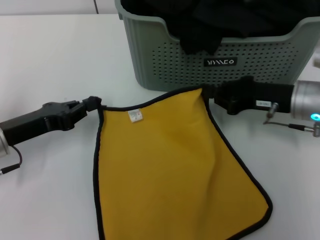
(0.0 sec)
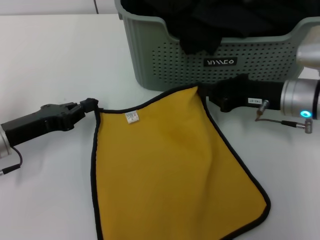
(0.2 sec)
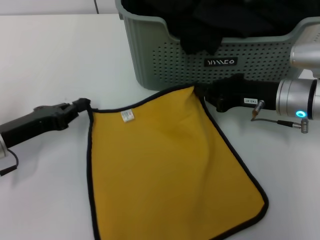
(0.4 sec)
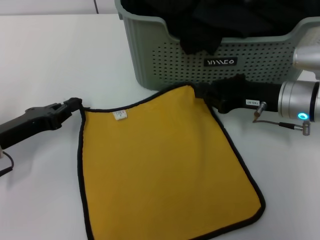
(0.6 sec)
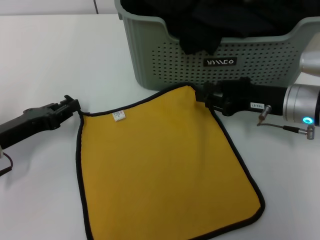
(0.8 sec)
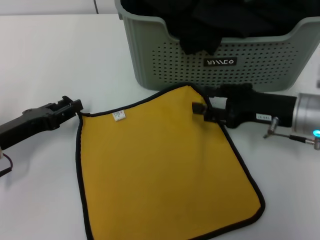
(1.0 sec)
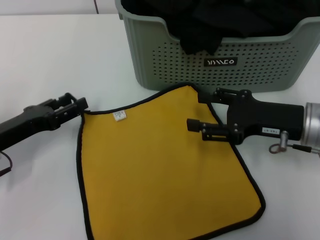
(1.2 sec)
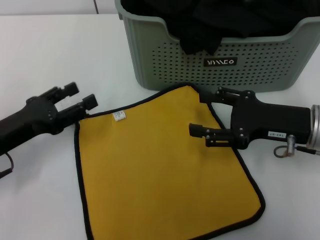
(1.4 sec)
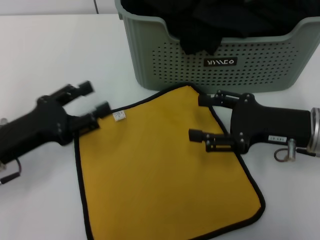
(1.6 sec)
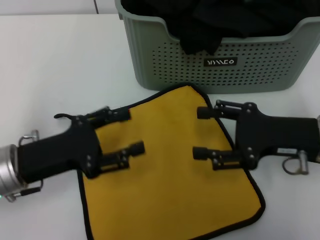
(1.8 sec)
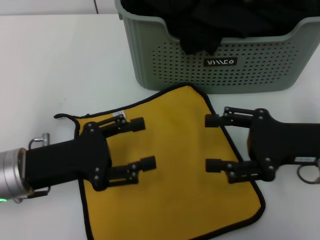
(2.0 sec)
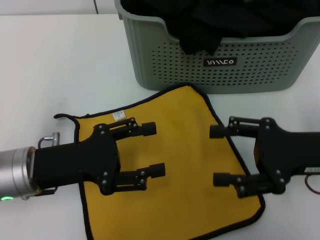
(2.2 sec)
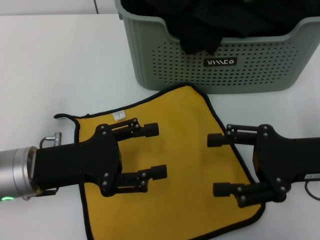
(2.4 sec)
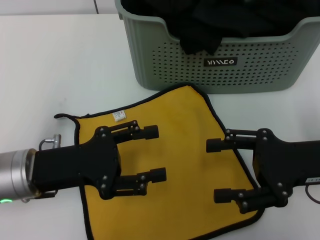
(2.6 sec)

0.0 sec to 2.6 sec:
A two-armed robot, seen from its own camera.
Task of the whole recording: pick up the towel from the storage box and lay it flat on the table.
0.0 sec to 1.2 sec: The right gripper opens up; the left gripper opens up.
1.2 sec to 2.6 sec: The left gripper is displaced to the right by roughly 10 cm, and opens up. The right gripper ends up approximately 5 cm from where it was.

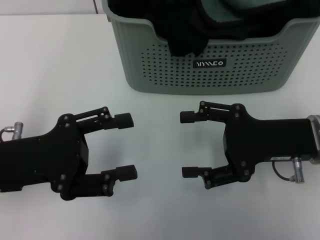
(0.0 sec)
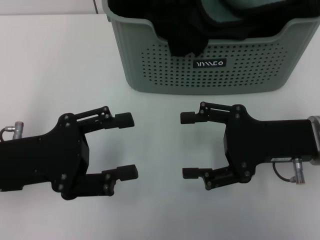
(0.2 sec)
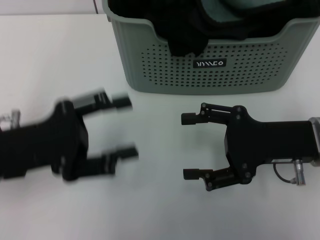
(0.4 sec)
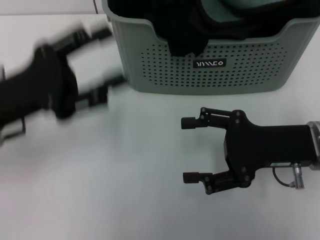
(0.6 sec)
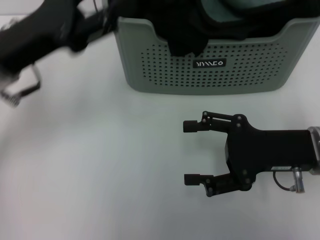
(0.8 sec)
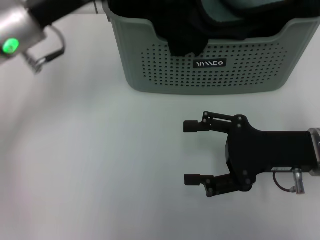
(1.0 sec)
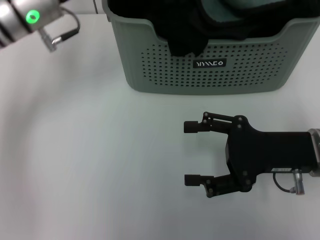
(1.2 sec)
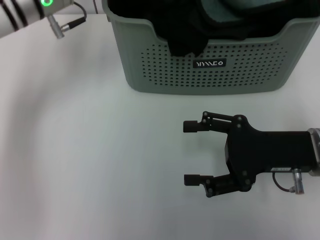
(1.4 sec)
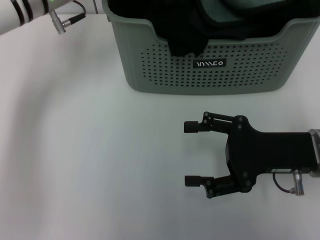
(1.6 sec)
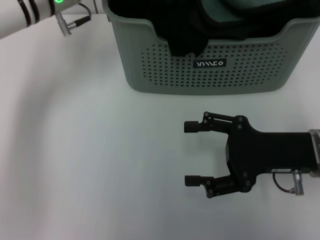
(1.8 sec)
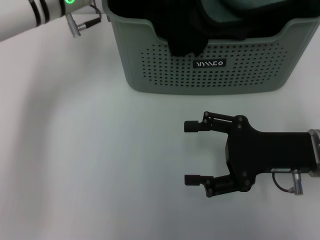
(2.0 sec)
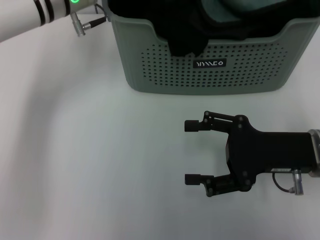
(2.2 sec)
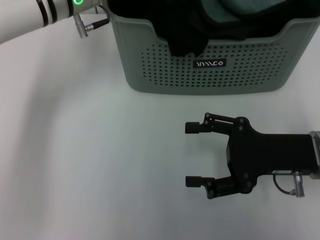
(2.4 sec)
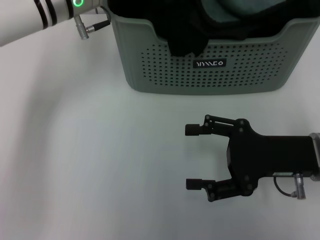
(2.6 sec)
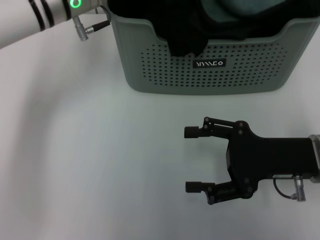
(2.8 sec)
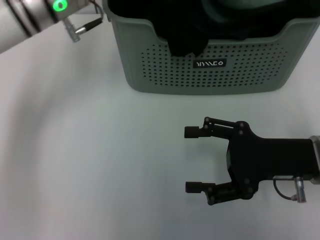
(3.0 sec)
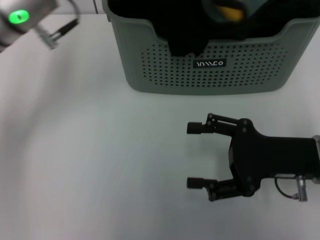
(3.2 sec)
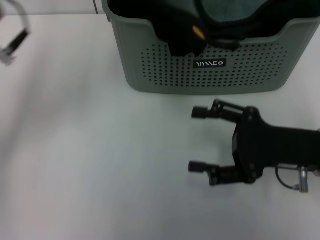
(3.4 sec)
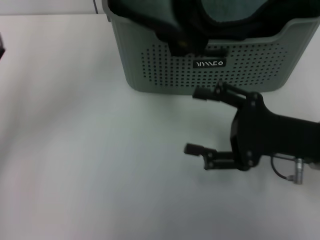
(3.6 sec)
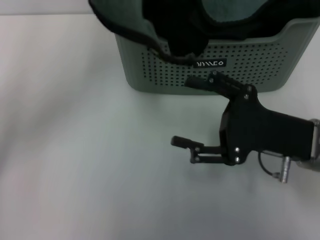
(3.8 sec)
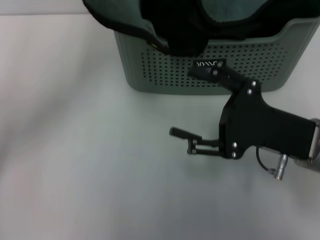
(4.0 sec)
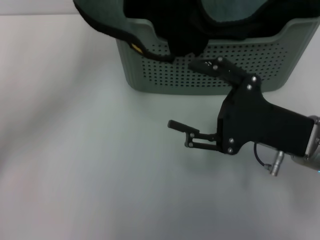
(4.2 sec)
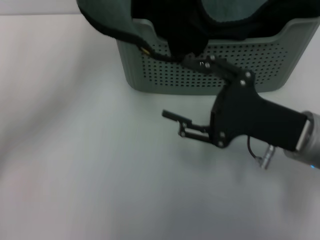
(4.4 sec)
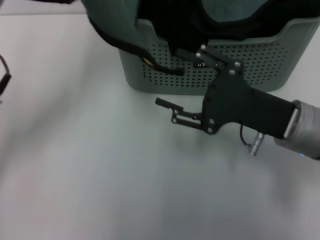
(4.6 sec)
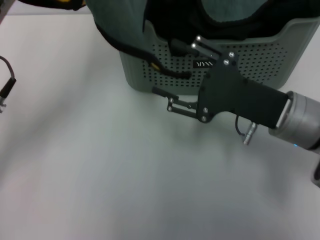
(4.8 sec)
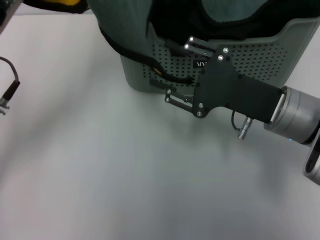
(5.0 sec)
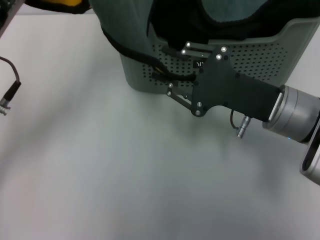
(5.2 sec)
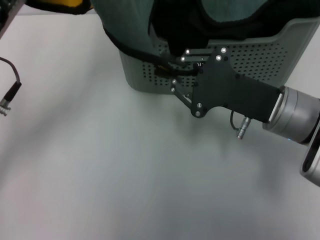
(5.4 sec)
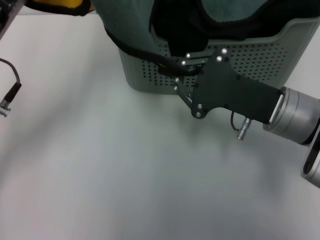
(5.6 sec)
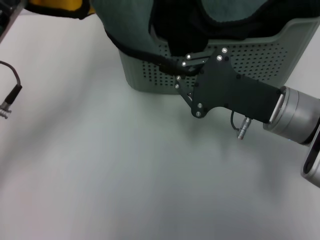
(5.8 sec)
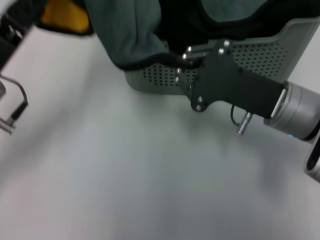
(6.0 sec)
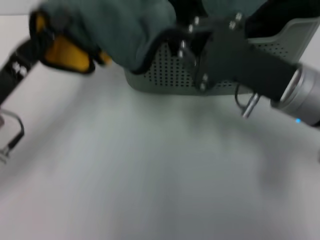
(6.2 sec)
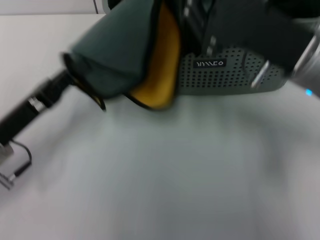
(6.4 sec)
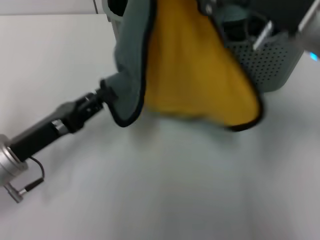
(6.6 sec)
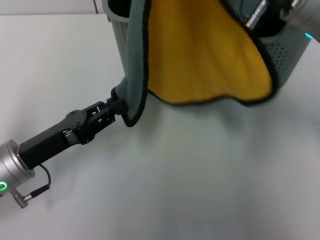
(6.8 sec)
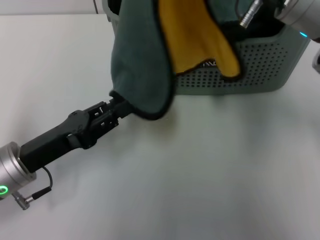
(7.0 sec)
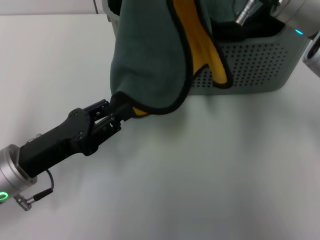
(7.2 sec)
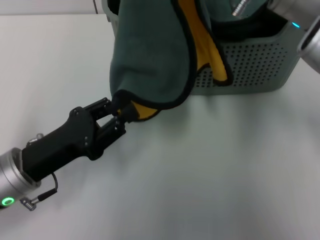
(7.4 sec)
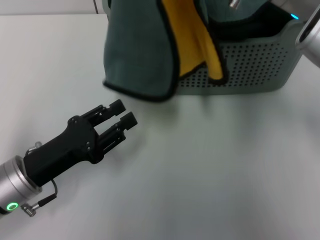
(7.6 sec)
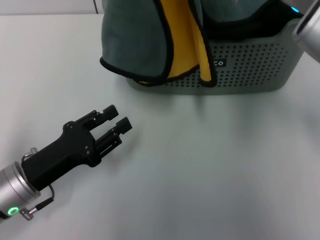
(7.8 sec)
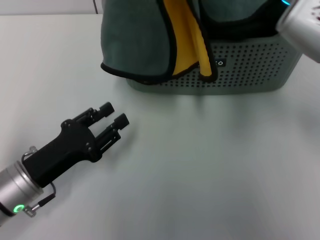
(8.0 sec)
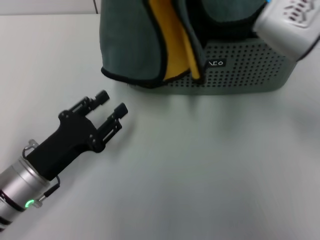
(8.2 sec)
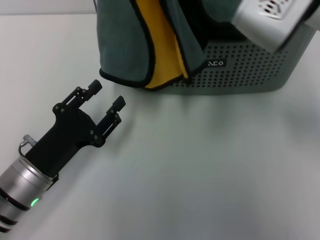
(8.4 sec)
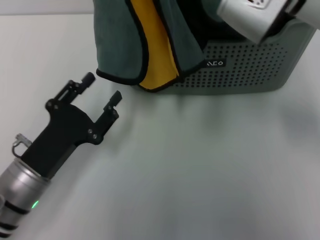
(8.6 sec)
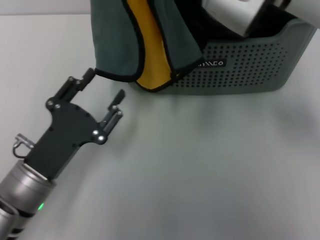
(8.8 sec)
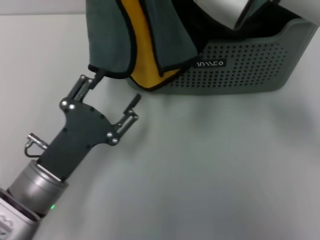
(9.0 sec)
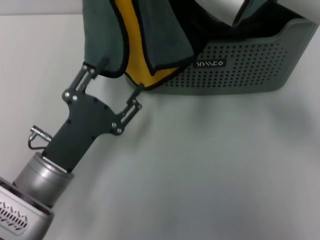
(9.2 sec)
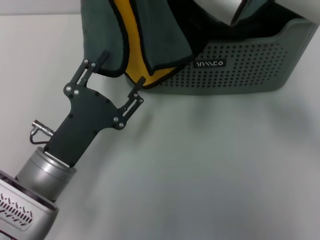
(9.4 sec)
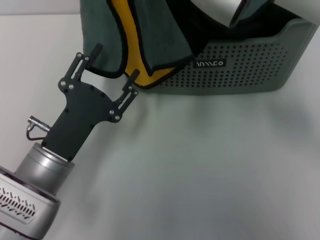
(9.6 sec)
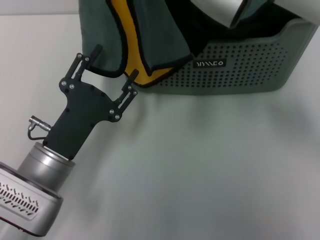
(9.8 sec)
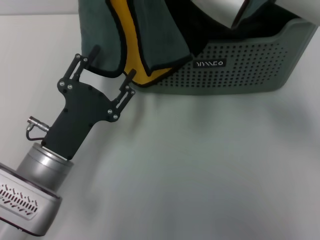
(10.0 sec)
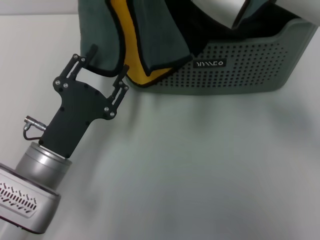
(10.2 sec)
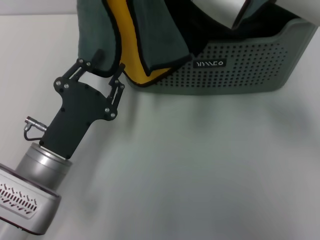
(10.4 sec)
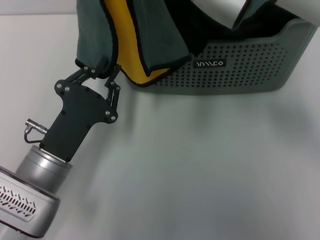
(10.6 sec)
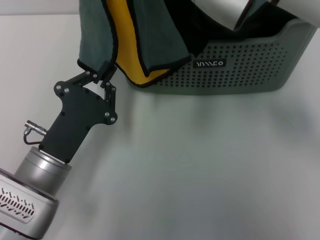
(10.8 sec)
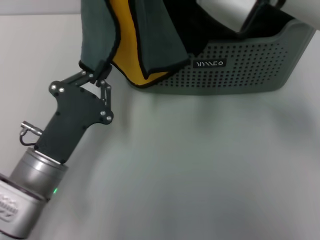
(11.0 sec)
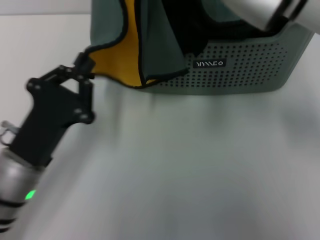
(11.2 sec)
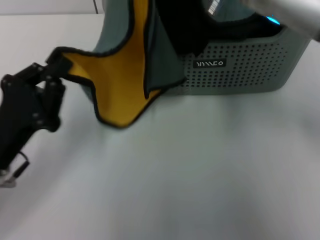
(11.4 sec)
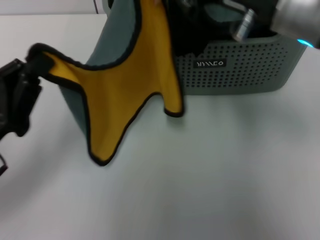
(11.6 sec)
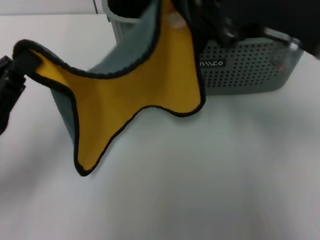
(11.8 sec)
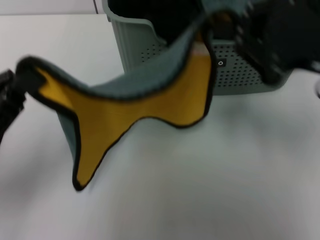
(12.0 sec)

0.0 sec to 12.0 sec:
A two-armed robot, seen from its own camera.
Task of the whole recording: pick up the towel from the storage box and lay it flat on the table.
Step, 0.0 sec to 2.8 sec: Pick up a towel with the left gripper.
Step, 3.0 sec to 5.4 sec: Spread the towel flat with the left gripper.
0.0 sec to 1.6 sec: The left gripper shifts approximately 20 cm forward.
1.6 sec to 3.0 sec: The left gripper closes up.
3.0 sec to 4.4 sec: The left gripper is displaced backward and to the left by roughly 15 cm.
4.4 sec to 6.0 sec: The right gripper closes.
6.0 sec to 7.6 sec: The right gripper shifts roughly 15 cm upward. Meanwhile the left gripper shifts about 10 cm downward and backward, and opens up.
7.6 sec to 9.0 sec: The right gripper travels to the left by some 5 cm.
9.0 sec to 10.4 sec: The grippers stay close to where they were, moving slightly.
10.4 sec to 12.0 sec: The right gripper shifts some 20 cm to the right and backward. Meanwhile the left gripper shifts approximately 15 cm to the left and upward, and closes up.

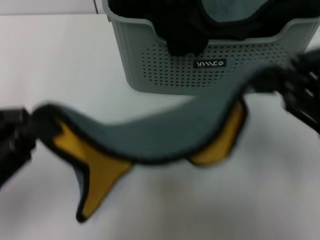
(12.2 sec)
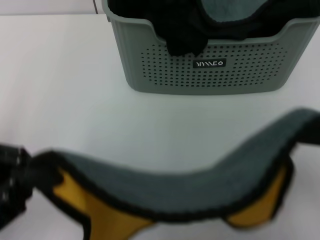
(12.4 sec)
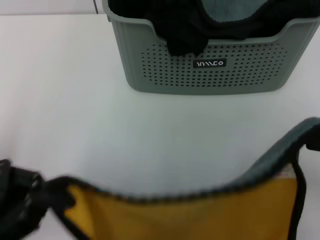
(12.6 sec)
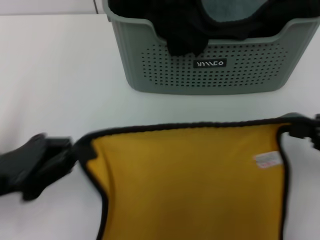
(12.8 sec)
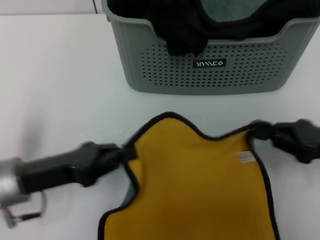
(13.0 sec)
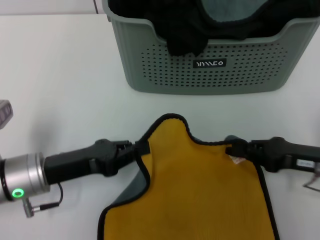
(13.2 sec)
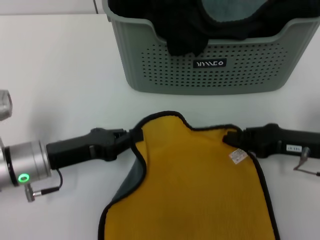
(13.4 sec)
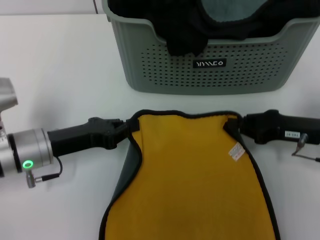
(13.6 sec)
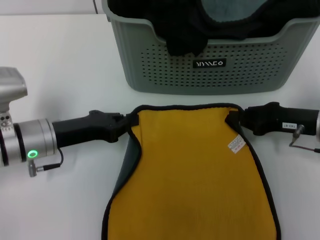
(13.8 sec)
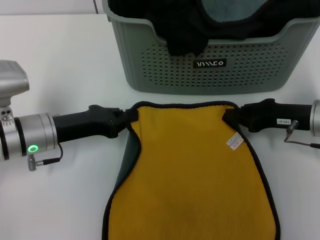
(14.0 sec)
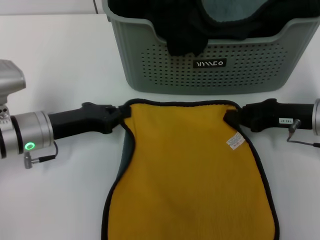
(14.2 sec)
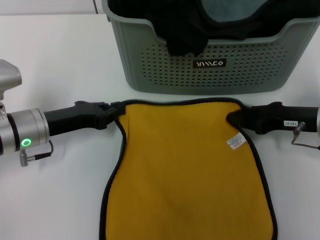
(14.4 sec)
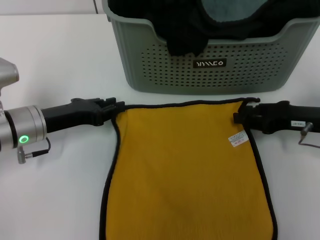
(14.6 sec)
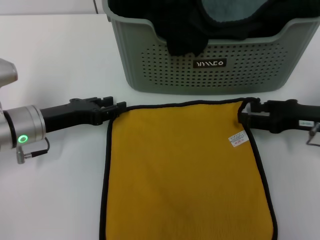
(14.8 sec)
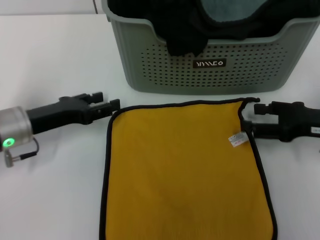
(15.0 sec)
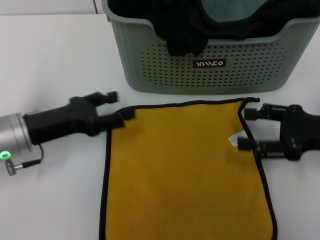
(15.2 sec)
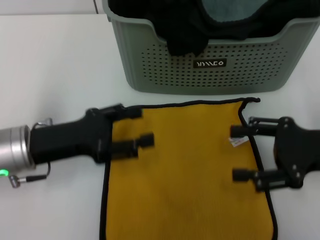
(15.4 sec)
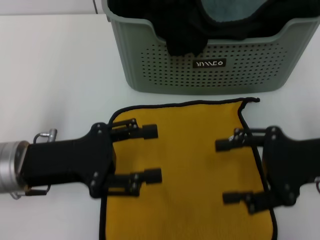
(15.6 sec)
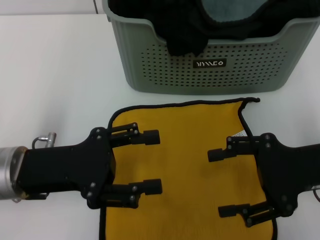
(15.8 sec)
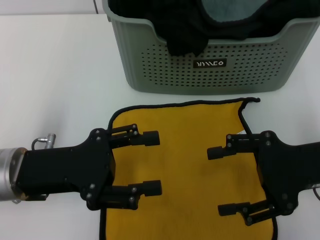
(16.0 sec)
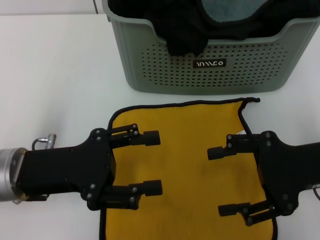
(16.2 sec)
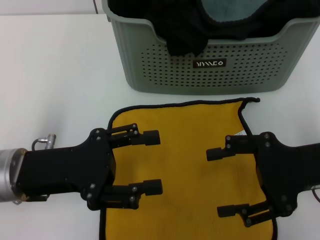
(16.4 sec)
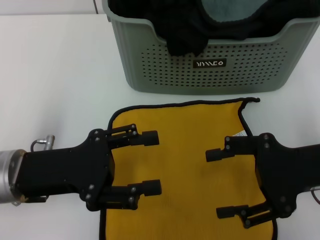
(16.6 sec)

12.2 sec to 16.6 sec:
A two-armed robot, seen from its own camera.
Task of the whole recording: pick up the towel from the storage box and lay it flat on the table.
Step, 12.2 sec to 14.6 sec: Spread the towel flat with the right gripper.
12.2 sec to 13.6 sec: The left gripper travels forward and downward by roughly 15 cm, while the right gripper shifts approximately 20 cm downward and forward.
13.6 sec to 15.2 sec: The right gripper travels upward by some 5 cm, and opens its fingers; the left gripper opens its fingers.
15.2 sec to 16.6 sec: The right gripper moves about 5 cm. Meanwhile the left gripper travels backward by some 5 cm.
